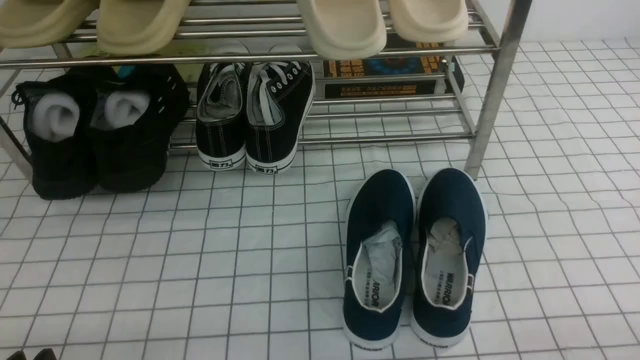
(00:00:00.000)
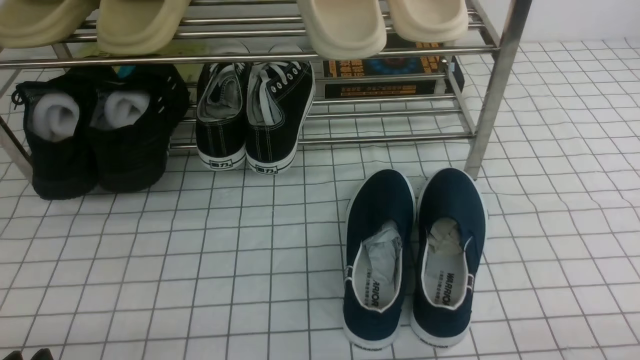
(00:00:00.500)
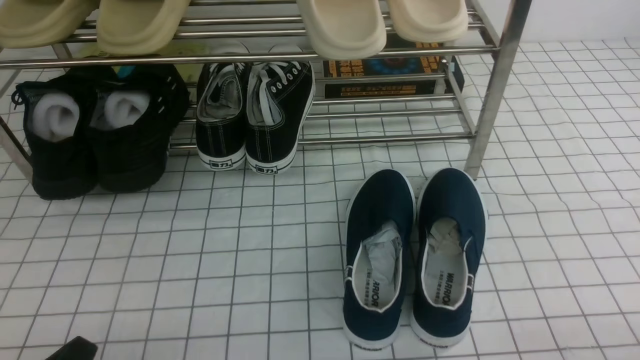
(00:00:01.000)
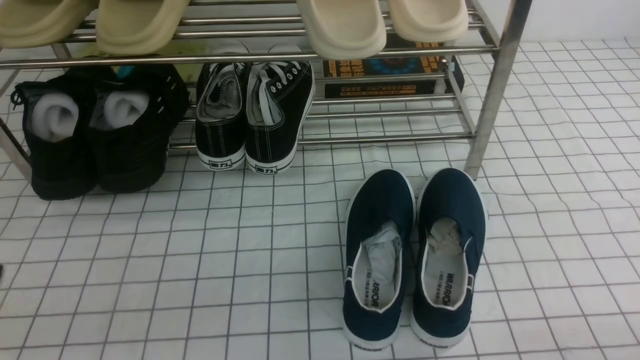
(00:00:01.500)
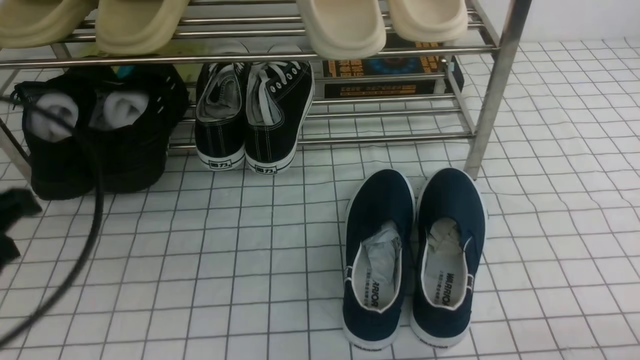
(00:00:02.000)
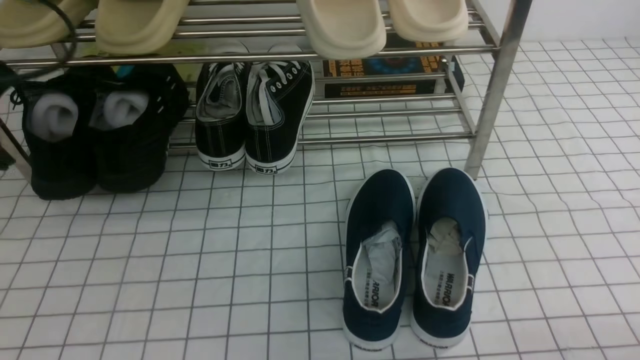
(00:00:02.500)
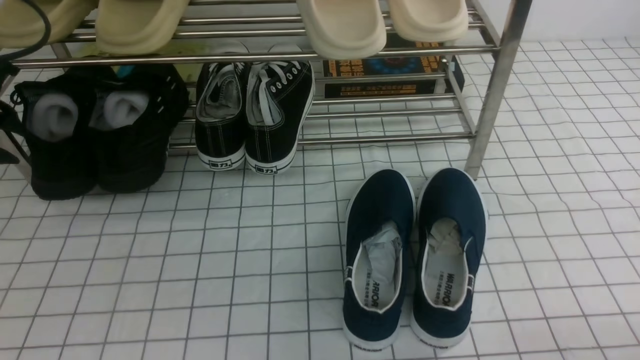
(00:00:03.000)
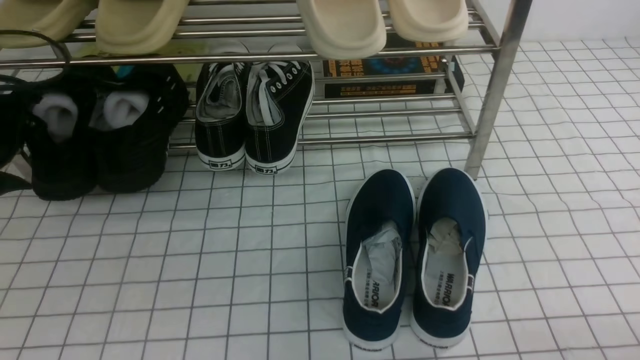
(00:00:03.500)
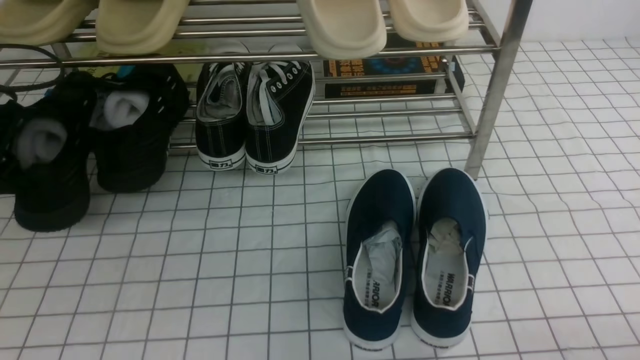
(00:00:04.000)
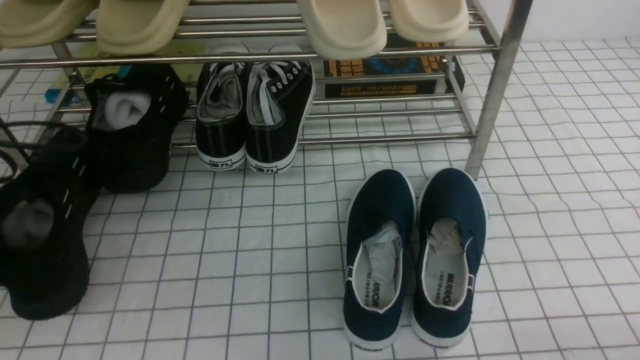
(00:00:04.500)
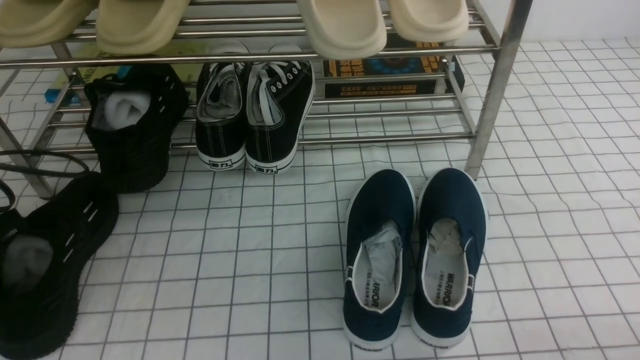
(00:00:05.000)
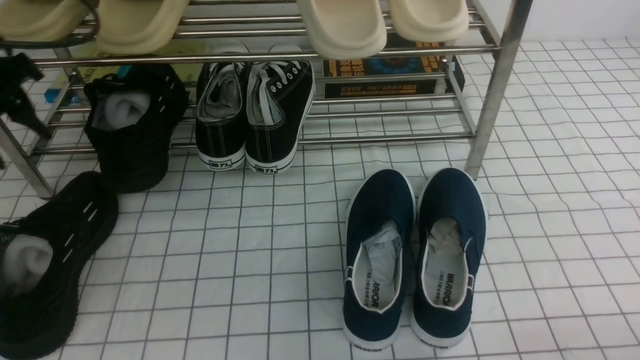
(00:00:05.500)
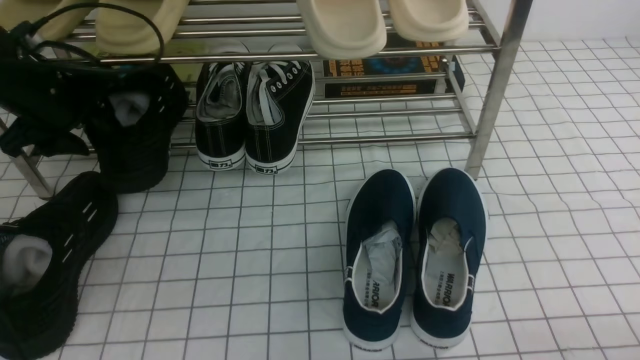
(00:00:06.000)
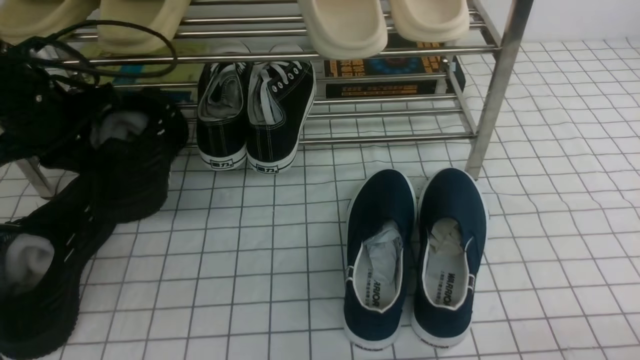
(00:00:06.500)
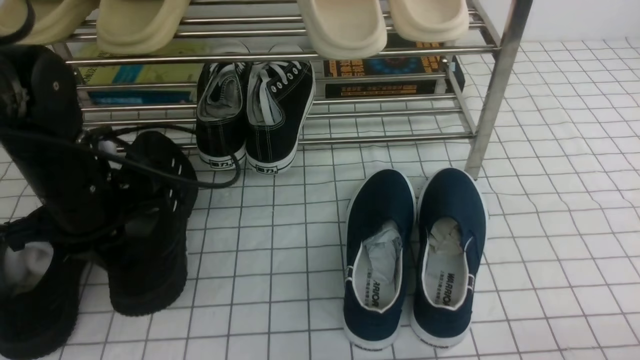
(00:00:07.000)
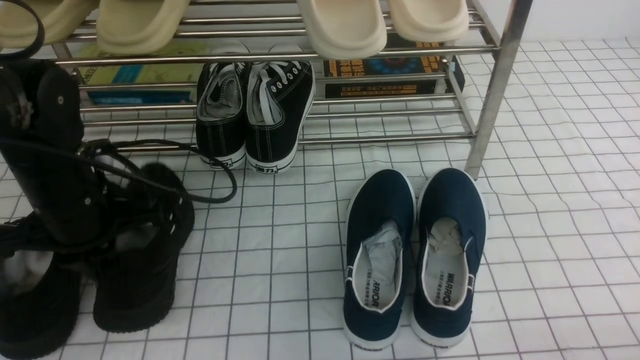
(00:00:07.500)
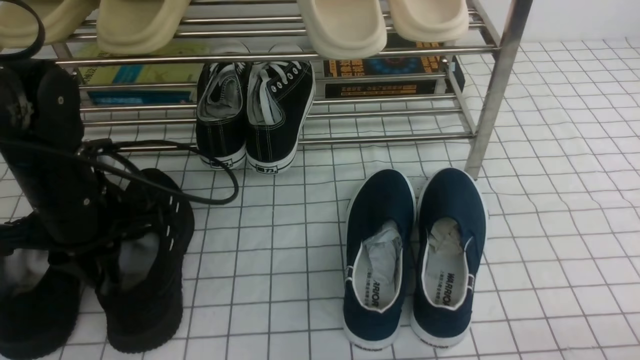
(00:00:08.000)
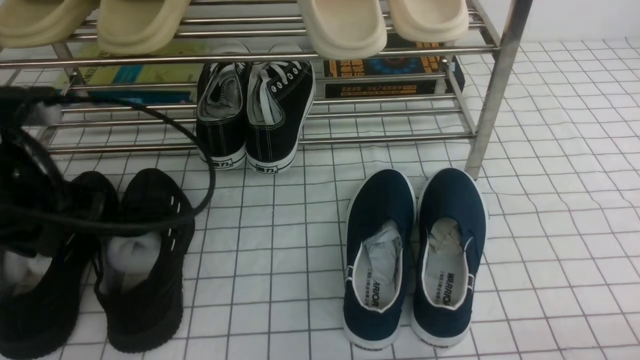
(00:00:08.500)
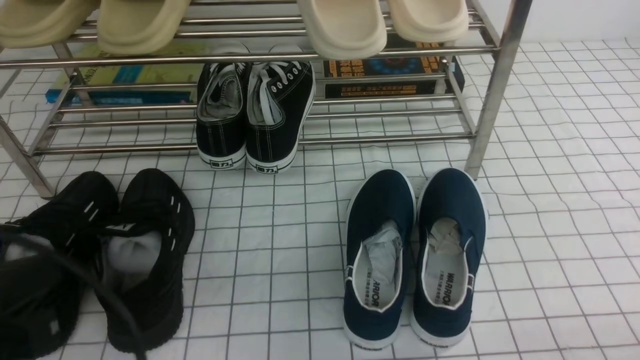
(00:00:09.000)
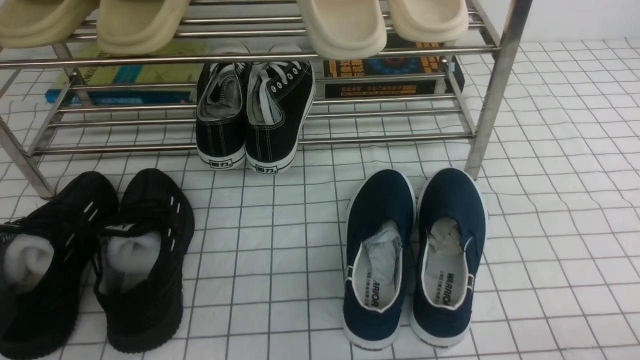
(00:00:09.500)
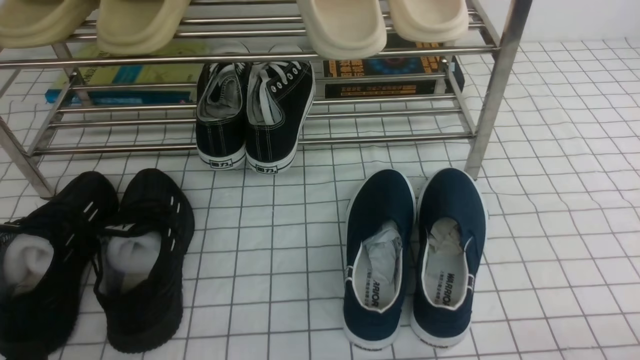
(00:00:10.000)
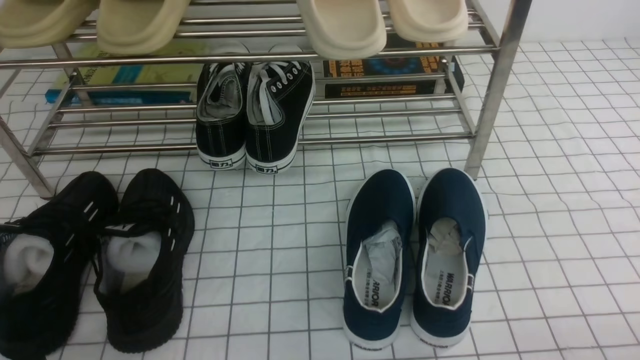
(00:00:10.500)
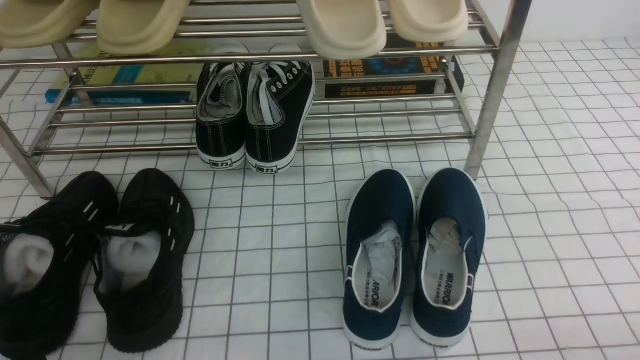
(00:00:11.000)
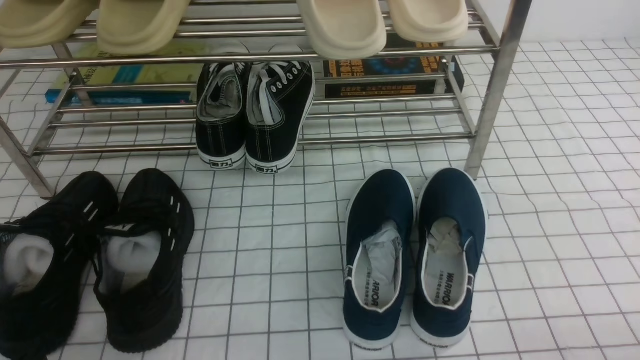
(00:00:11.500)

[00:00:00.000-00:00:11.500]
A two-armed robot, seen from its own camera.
Step, 00:00:00.000 to 00:00:03.500: use the left arm to clamp a shoe on the left side of the shoe rack.
Step, 00:00:04.000 to 00:00:05.000: Use your left arm to remove the clamped shoe from the shoe rack and put it down.
Step, 00:00:05.500 to 00:00:06.000: use the left arm to clamp a shoe on the left side of the shoe rack.
Step, 00:00:06.500 to 00:00:08.000: Use your left arm to remove the clamped shoe from the shoe rack and put it down.
00:00:00.000 to 00:00:02.000: The left gripper goes approximately 20 cm upward and forward, and closes.
00:00:02.000 to 00:00:04.000: The left gripper shifts about 20 cm forward, to the left and downward, and opens and closes again.
00:00:04.000 to 00:00:06.000: The left gripper moves to the right and forward, some 10 cm, and opens its fingers.
00:00:06.000 to 00:00:07.500: The left gripper is displaced backward and to the right by about 10 cm, and closes.
00:00:07.500 to 00:00:09.500: The left gripper shifts about 25 cm backward, and opens, then closes once more.
